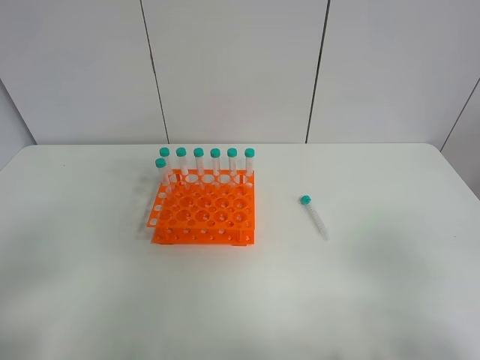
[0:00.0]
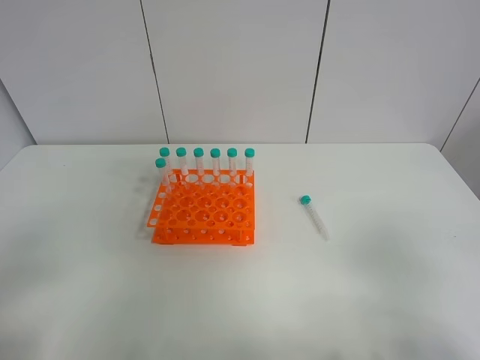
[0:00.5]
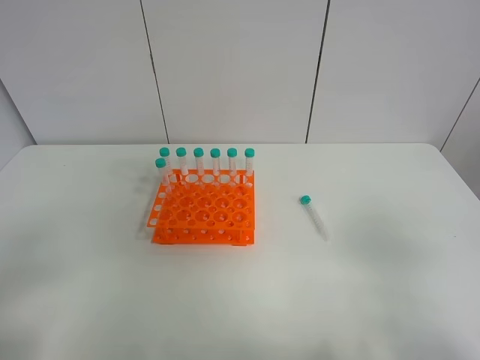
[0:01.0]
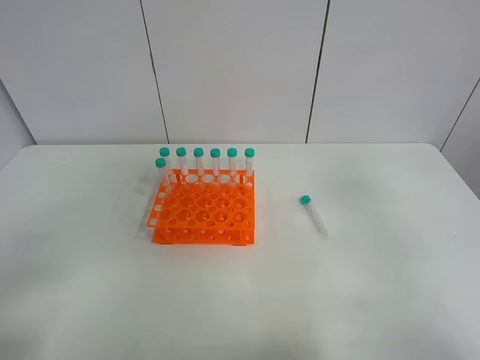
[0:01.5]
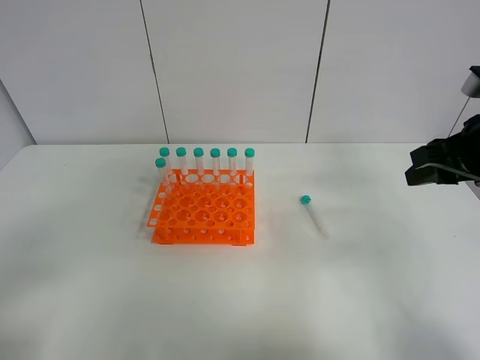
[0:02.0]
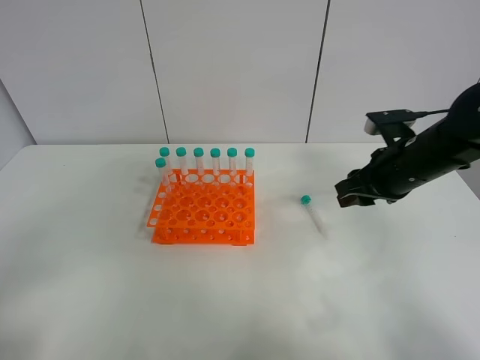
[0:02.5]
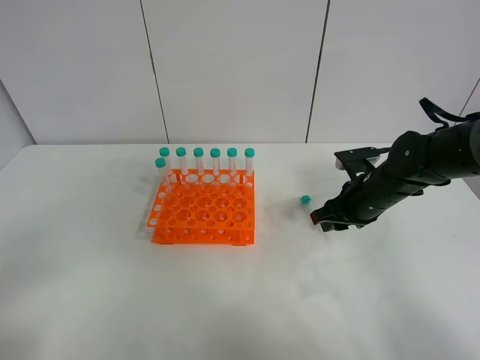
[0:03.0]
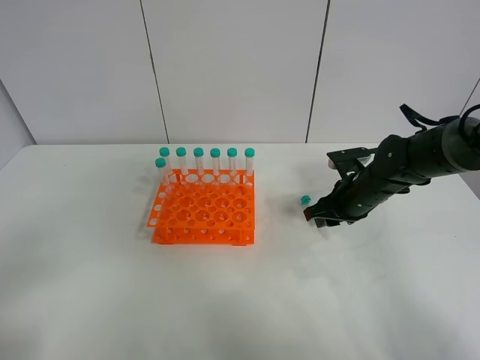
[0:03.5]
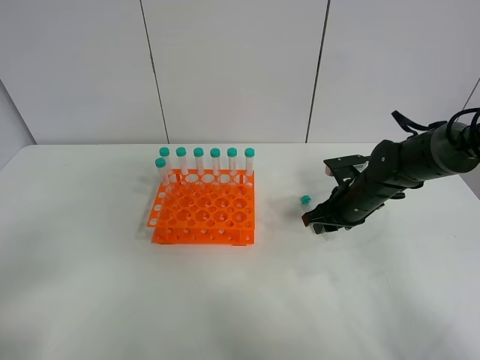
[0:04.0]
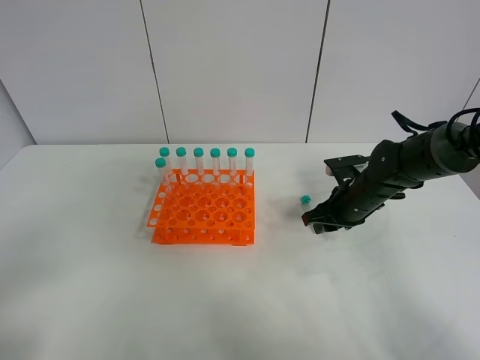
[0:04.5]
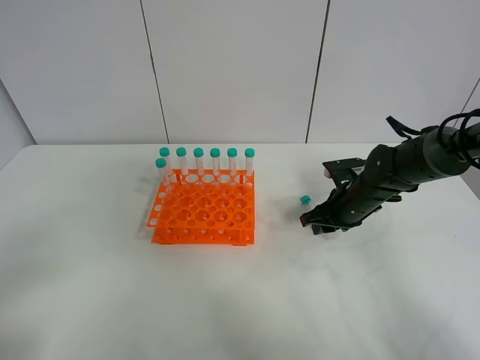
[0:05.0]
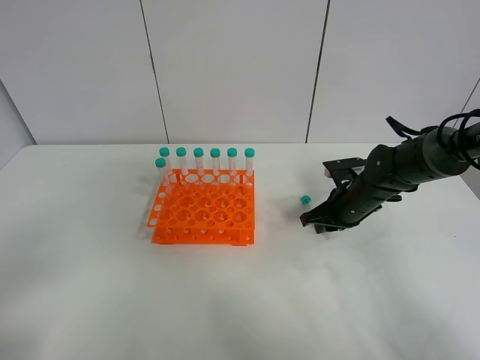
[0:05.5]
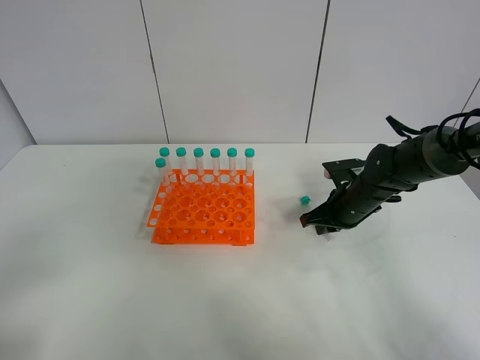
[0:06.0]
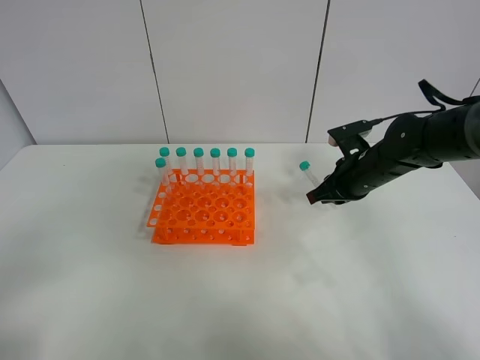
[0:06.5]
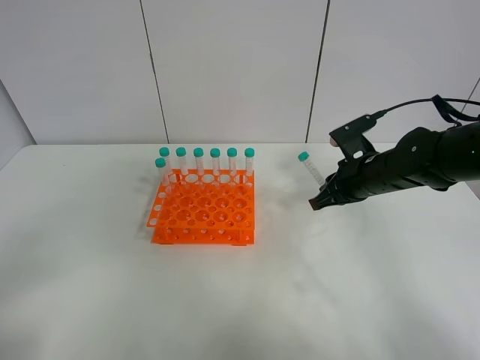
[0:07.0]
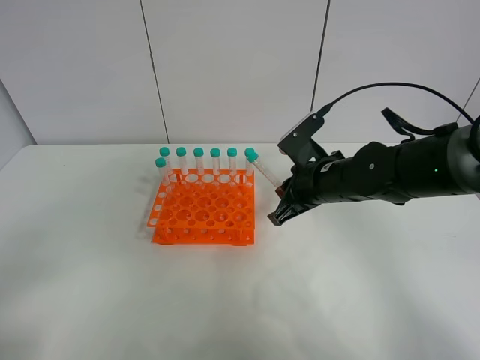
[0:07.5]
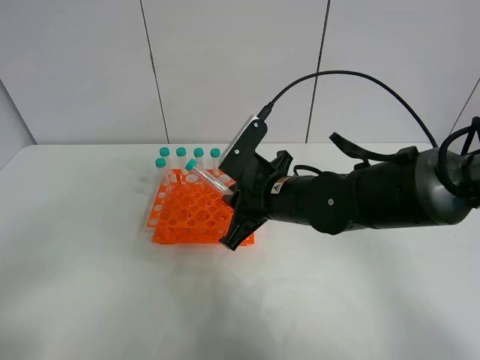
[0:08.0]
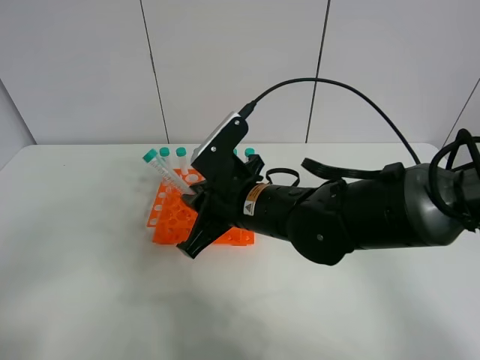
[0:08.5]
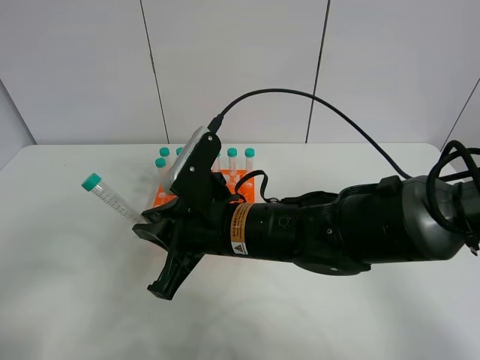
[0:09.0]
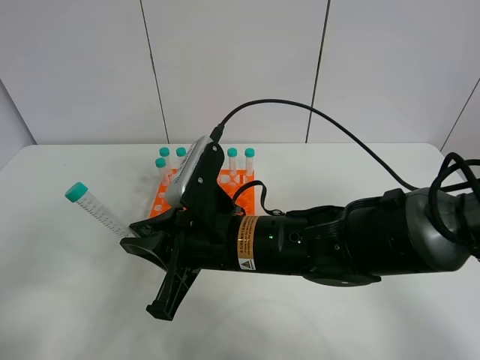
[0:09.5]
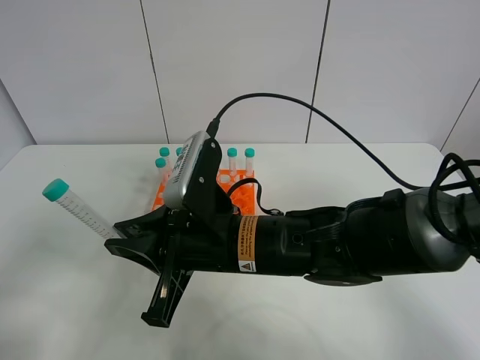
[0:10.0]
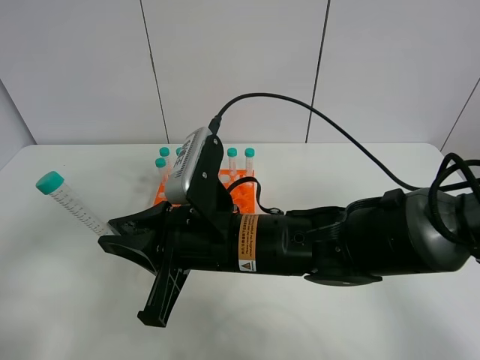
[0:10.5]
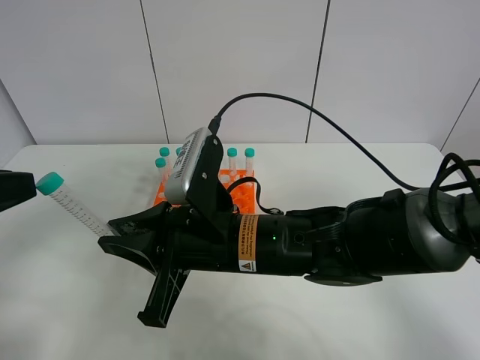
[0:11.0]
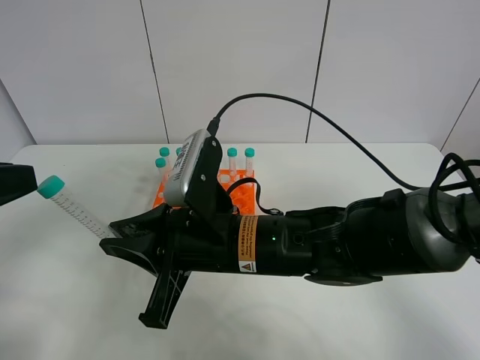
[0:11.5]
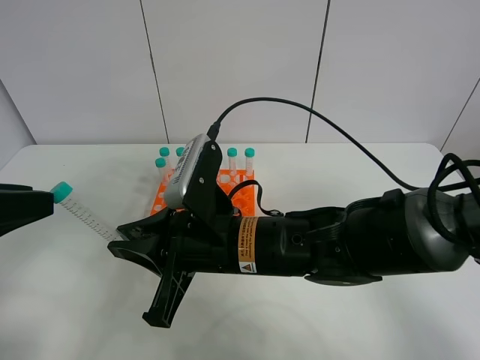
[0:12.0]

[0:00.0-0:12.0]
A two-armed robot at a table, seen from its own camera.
Task of the whole recording: Put the test tube on the table back onto the test tube rack.
Step, 0.0 to 6.5 s: Pick up the test tube with the right gripper.
0.0 to 2.0 s: The right gripper shifts approximately 25 cm forward.
2.0 to 4.0 s: The right gripper moves downward, forward and to the left, some 25 cm.
4.0 to 6.0 s: The right gripper closes its fingers.
6.0 to 8.0 s: The right gripper goes roughly 20 cm to the left, upward and backward.
8.0 to 10.0 s: The right gripper travels backward and to the left by about 10 cm.
10.0 to 12.0 s: The left gripper shifts some 10 cm forward.

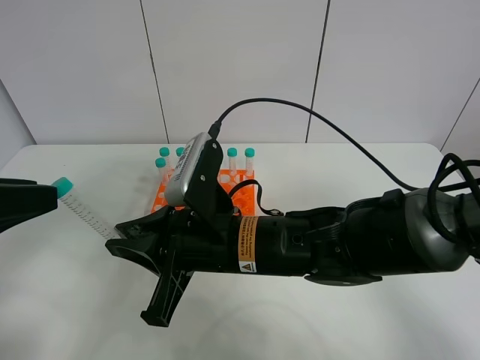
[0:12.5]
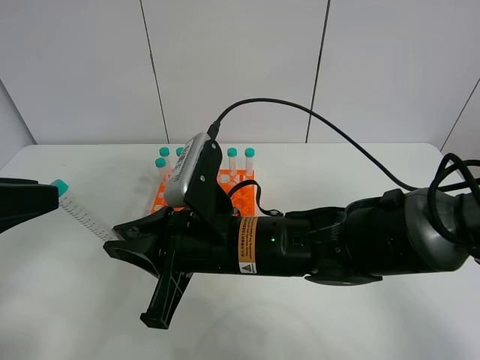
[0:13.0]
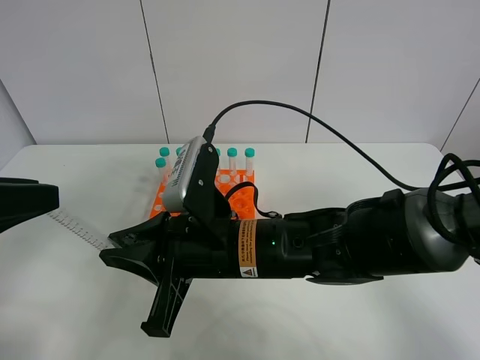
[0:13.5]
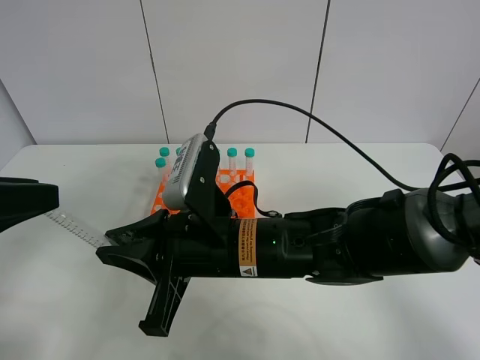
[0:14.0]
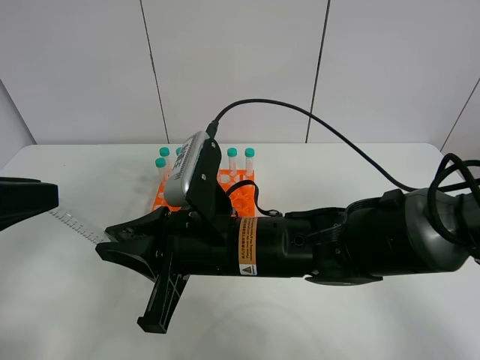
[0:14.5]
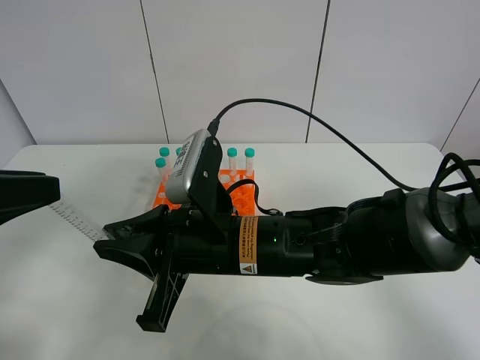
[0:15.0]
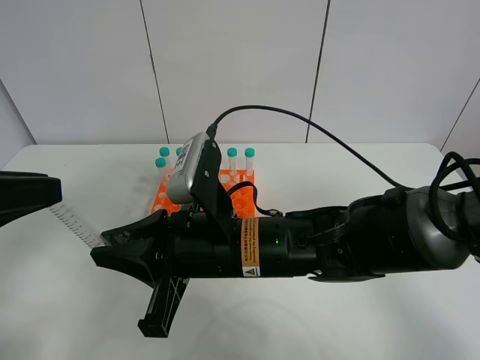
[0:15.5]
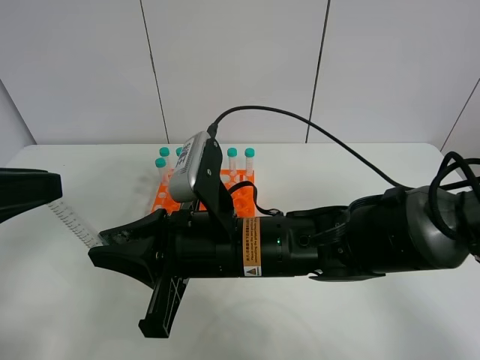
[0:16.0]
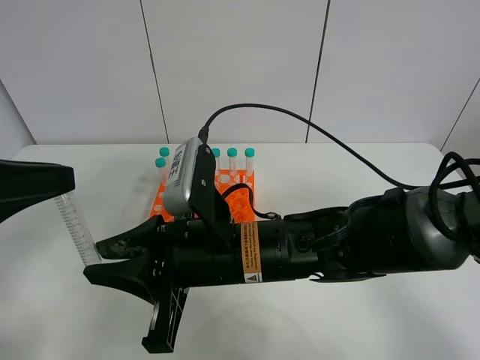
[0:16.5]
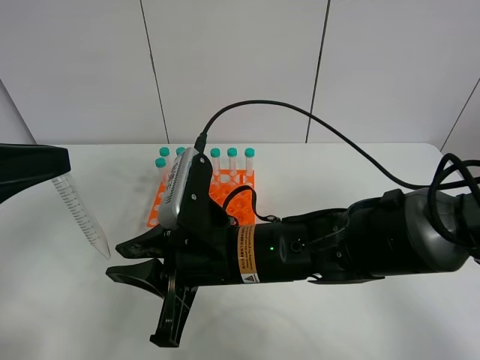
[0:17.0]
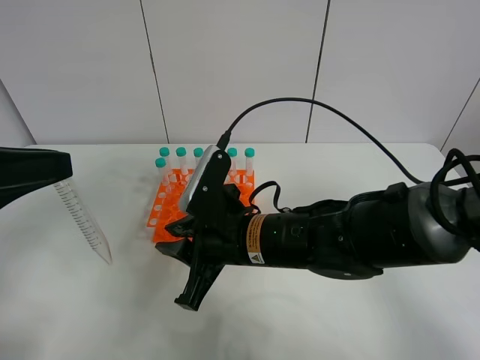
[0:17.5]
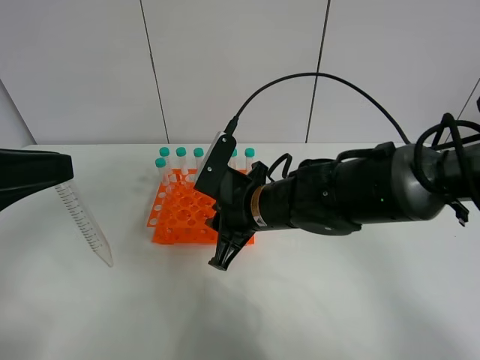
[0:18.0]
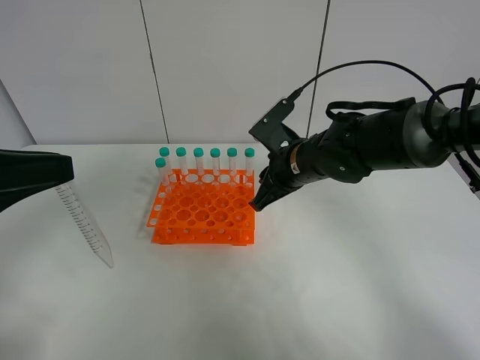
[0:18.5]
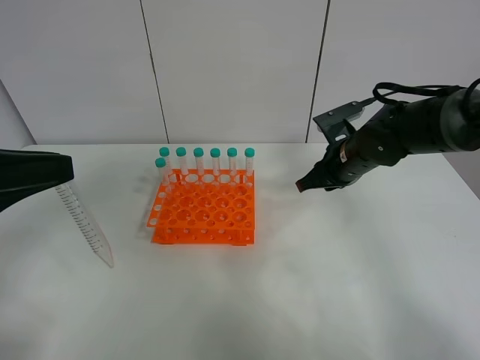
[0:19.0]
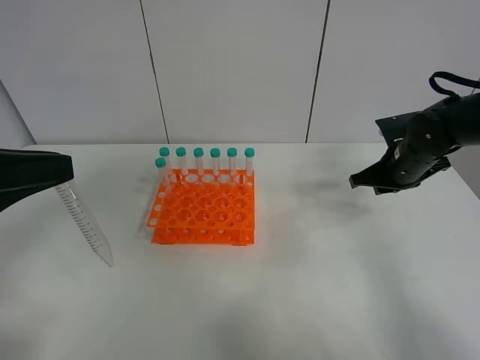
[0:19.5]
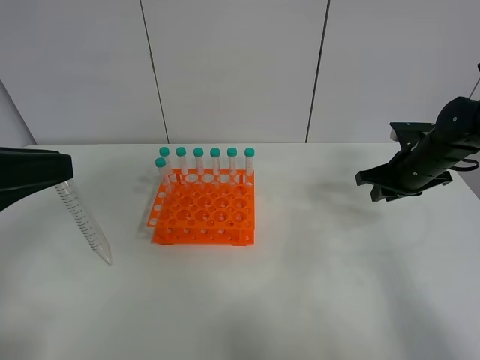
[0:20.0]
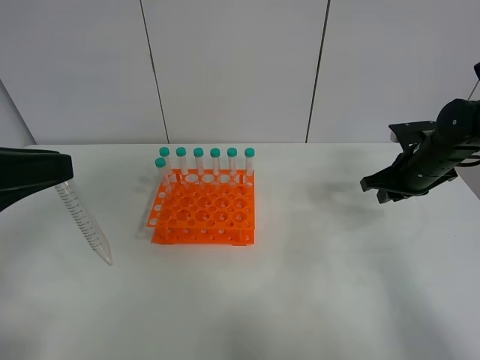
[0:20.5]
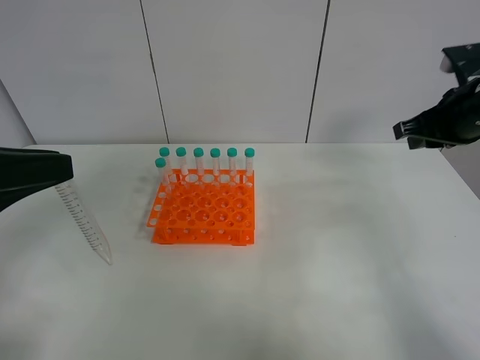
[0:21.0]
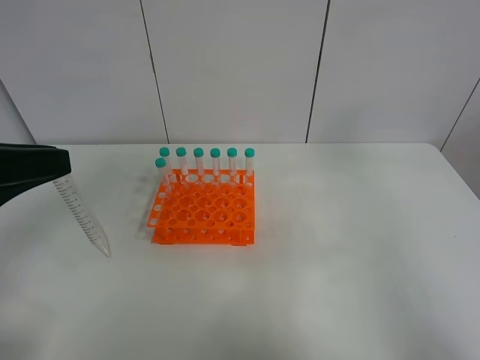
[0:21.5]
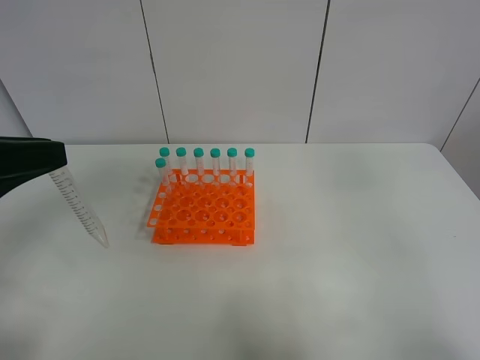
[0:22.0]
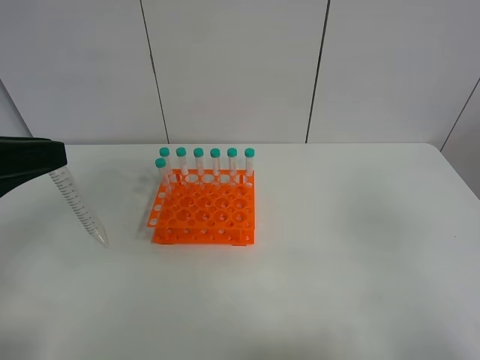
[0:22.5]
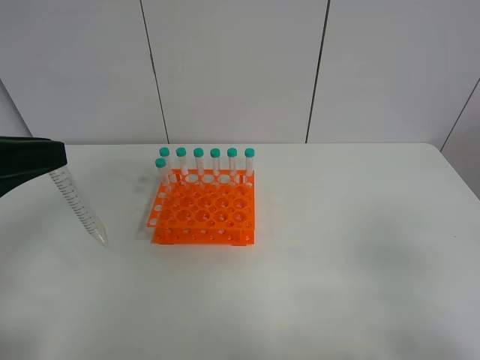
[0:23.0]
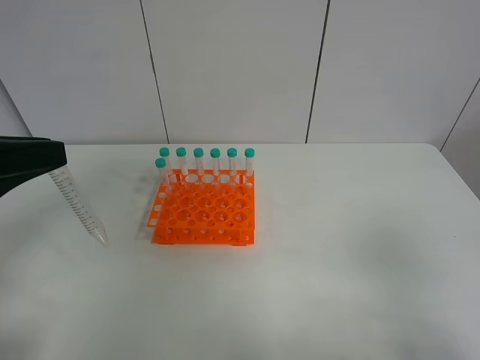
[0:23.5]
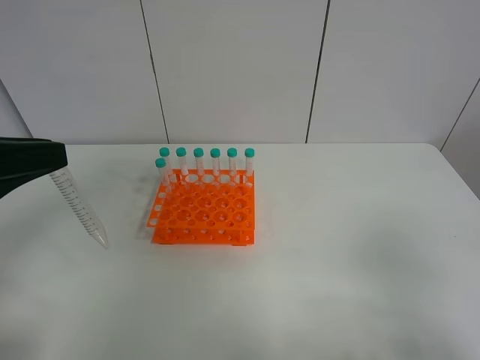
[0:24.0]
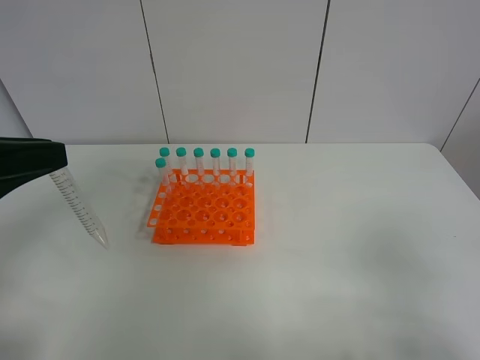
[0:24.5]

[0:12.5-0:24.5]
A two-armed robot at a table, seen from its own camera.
Task of the whole recording: Put the test tube on the table back onto the test tube rack.
Step, 12.5 to 18.5 s: Move the test tube from the right gripper to the left gripper.
12.5 to 14.5 s: Both grippers stay put.
14.5 to 16.5 s: The right gripper opens its fingers.
16.5 to 18.5 s: The right gripper travels forward and to the right by roughly 20 cm.
18.5 to 20.5 s: The right gripper heads to the right, covering roughly 20 cm.
20.5 to 22.5 s: The right gripper moves backward and upward, roughly 40 cm.

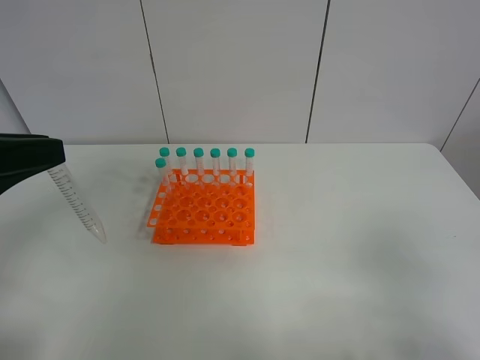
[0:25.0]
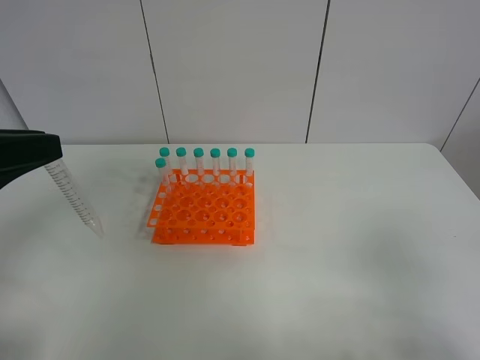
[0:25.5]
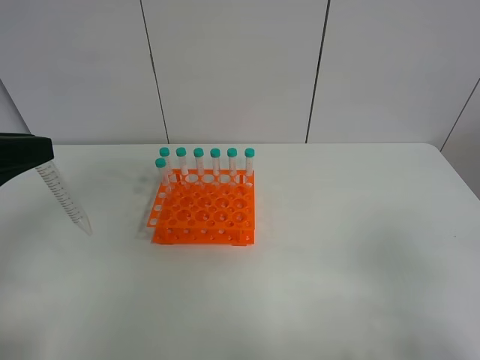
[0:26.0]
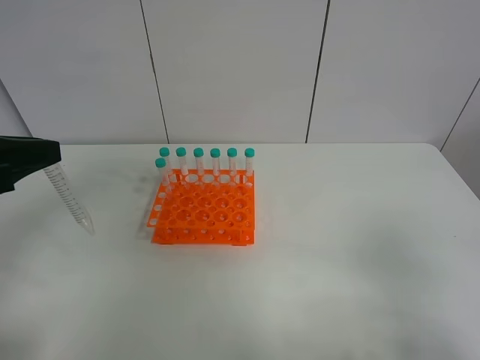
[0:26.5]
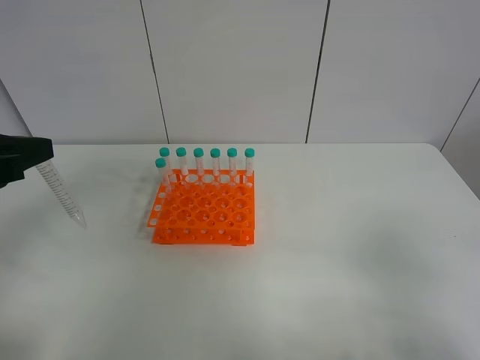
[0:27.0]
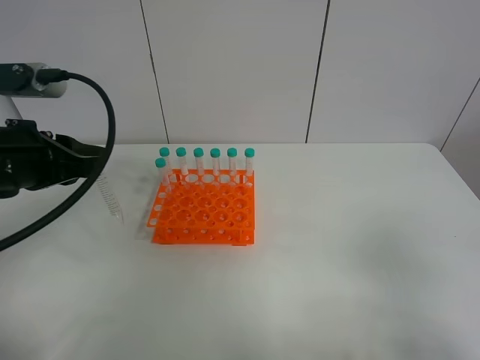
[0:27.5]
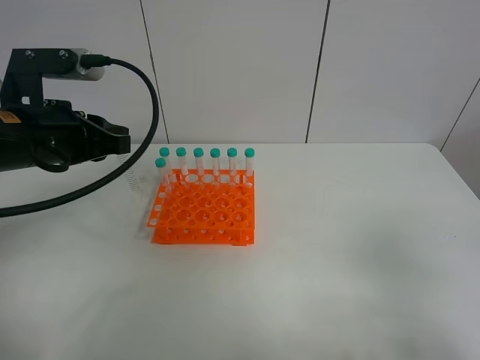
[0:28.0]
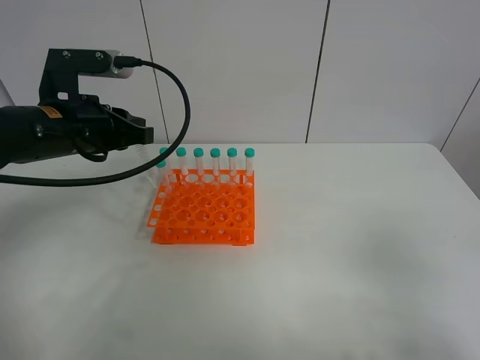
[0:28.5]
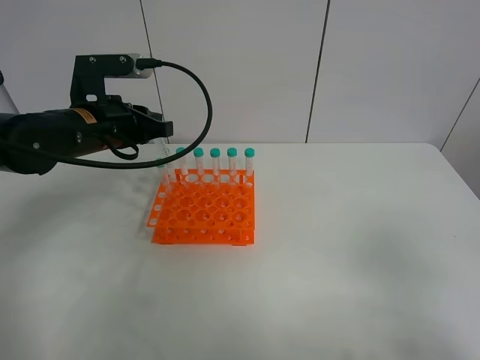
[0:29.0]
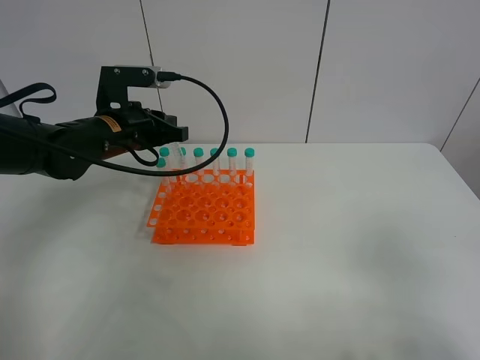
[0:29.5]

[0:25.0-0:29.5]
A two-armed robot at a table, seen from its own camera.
Task of the whole recording: Put the test tube on the table back onto the test tube rack.
27.0 to 29.5 s: The left gripper moves forward, to the right and downward, roughly 25 cm.
